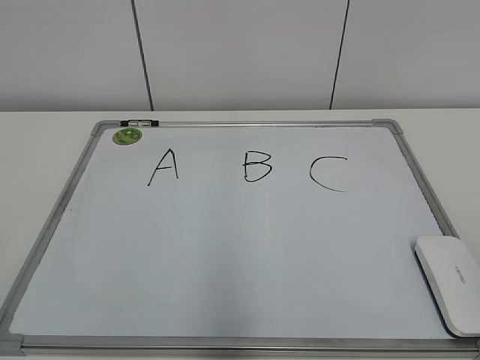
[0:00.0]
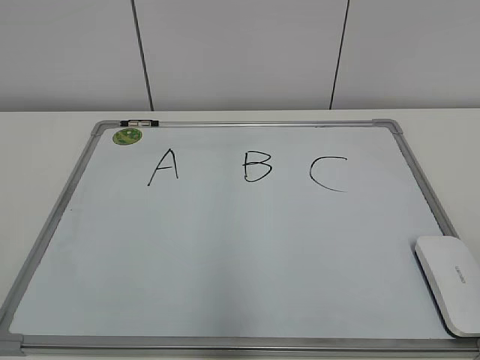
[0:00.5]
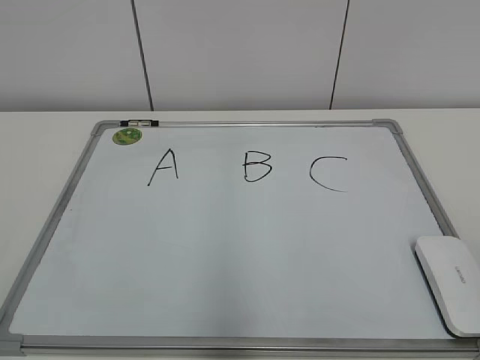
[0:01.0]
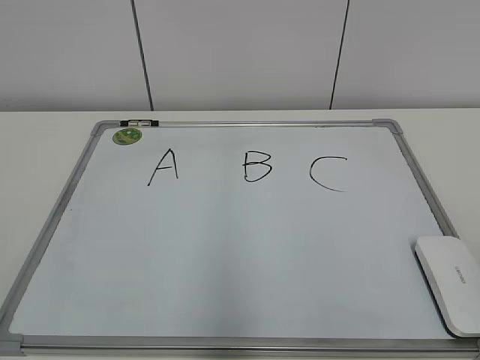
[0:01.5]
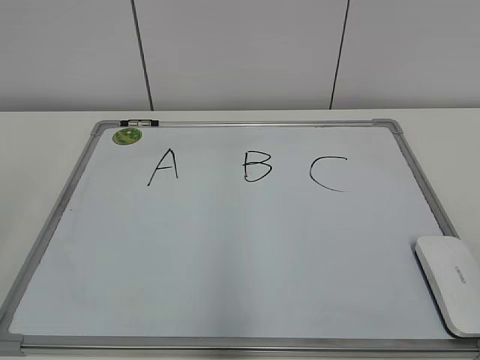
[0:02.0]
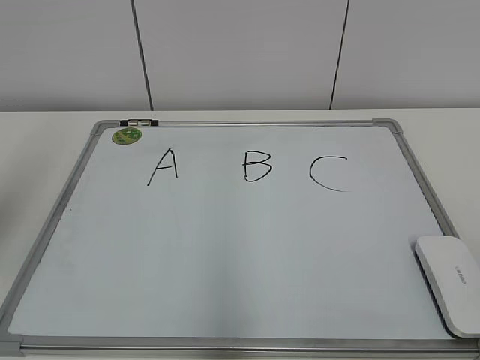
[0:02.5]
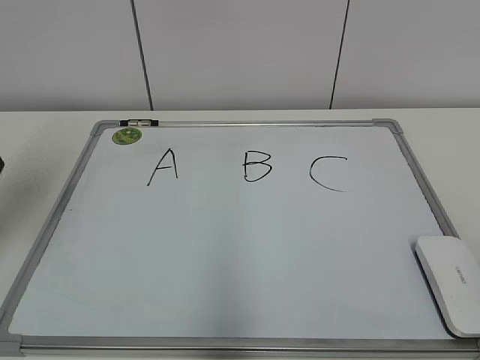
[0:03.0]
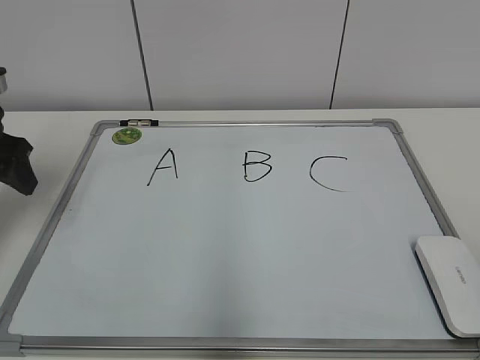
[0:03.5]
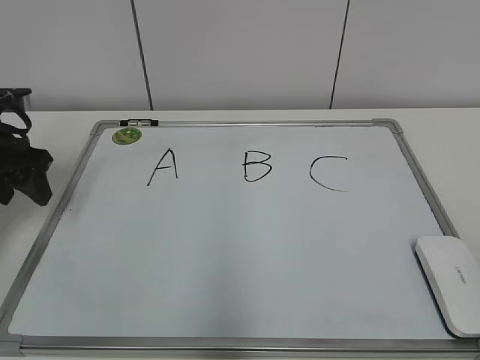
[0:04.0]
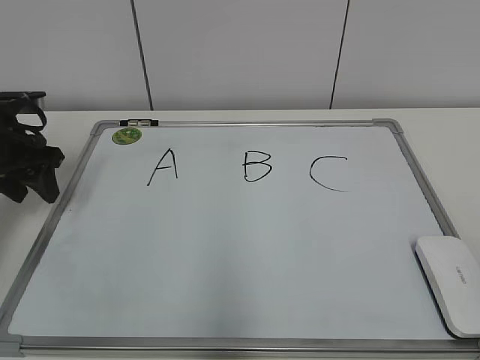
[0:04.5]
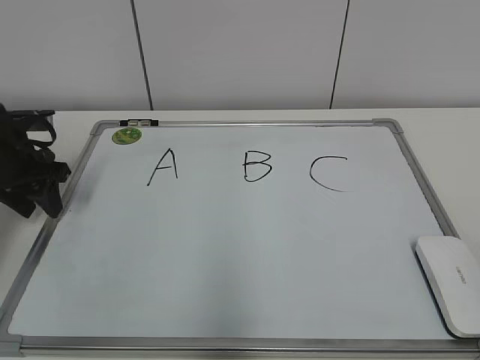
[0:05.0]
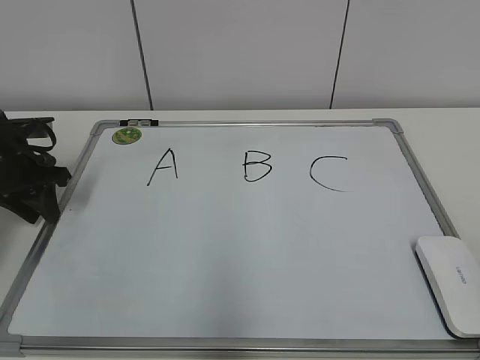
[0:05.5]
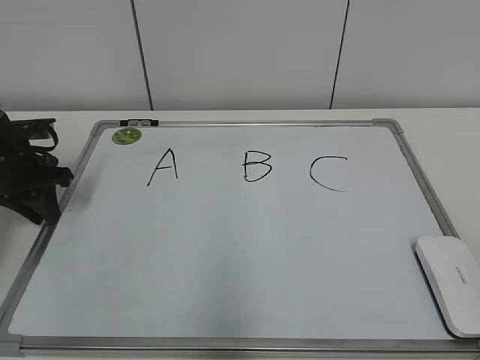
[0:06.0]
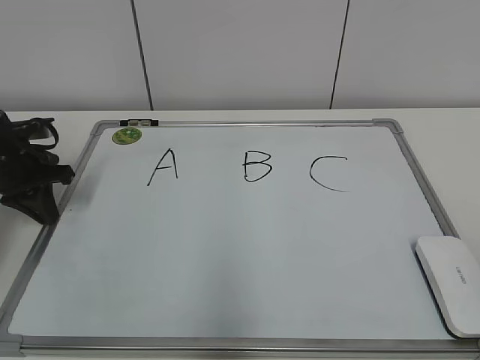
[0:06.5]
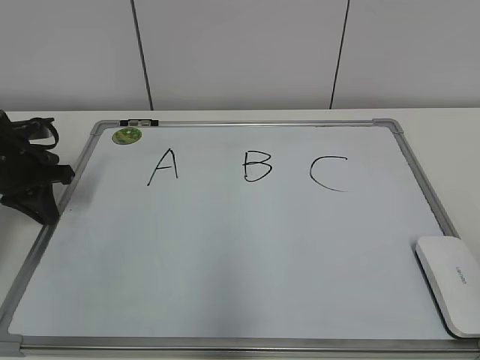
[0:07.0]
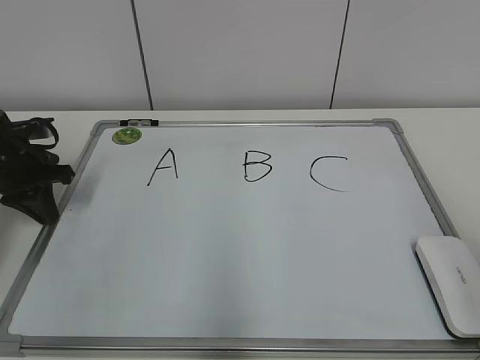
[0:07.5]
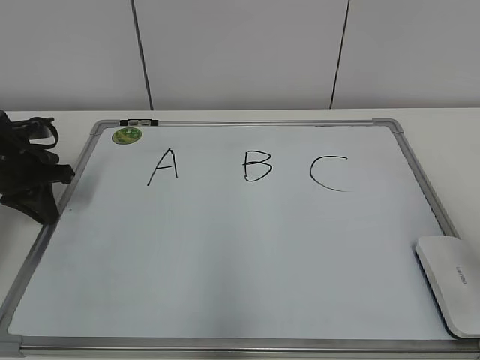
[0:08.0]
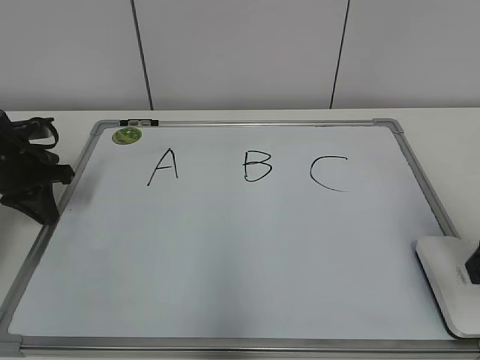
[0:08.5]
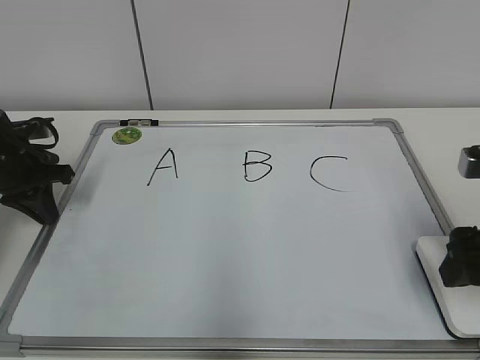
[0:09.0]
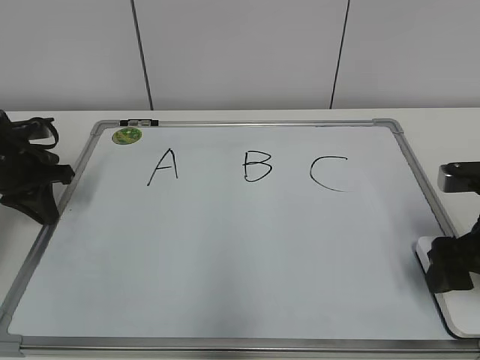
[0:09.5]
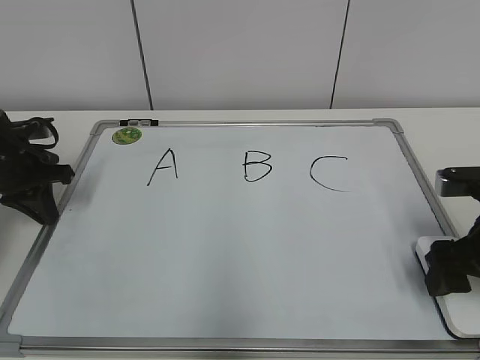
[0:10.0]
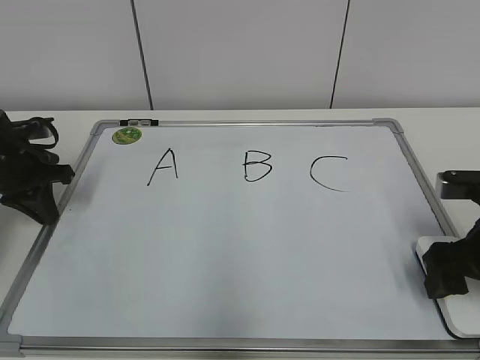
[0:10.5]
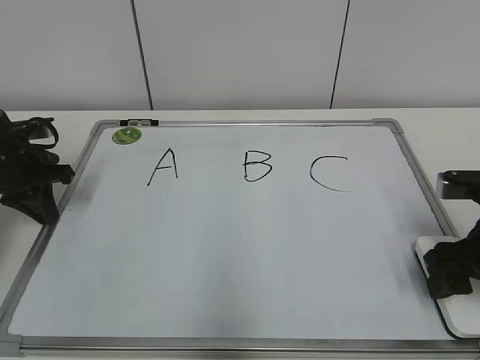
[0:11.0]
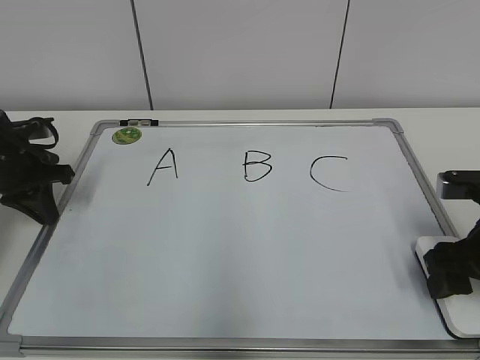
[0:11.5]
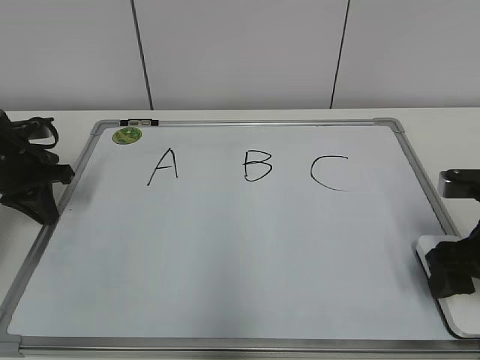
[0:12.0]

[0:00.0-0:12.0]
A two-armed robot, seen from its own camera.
Task of the whole recording: pick up the eraser on the blackboard and erase the letter "B".
Step, 0:00.0 to 0:06.0: Hold the drawing board steady with your left hand.
Step, 0:06.5 to 0:11.5: Grab the eraser with your right hand.
0:02.0 to 0:04.0: The left gripper is displaced forward and downward by about 35 cm.
0:04.0 to 0:06.0: The left gripper goes about 5 cm downward, and closes.
0:06.0 to 0:08.0: The right gripper heads forward, covering some 15 cm.
0:08.0 to 0:10.0: The right gripper heads downward and forward, covering approximately 15 cm, and opens its fingers.
0:10.0 to 0:12.0: The right gripper closes up.

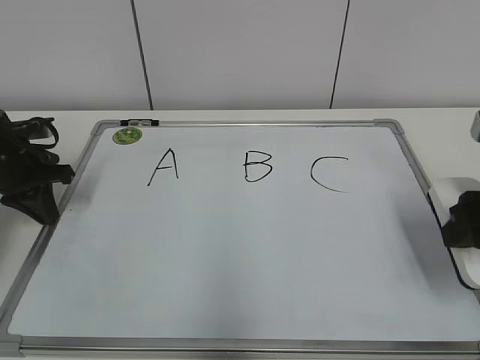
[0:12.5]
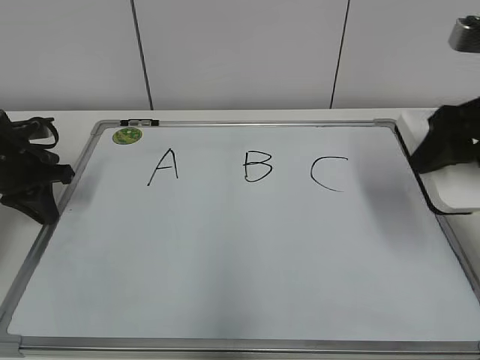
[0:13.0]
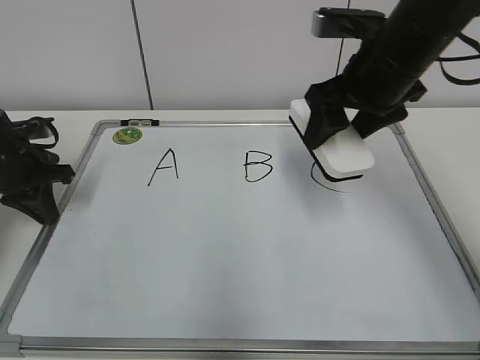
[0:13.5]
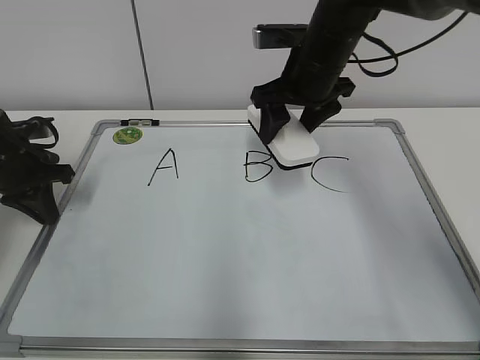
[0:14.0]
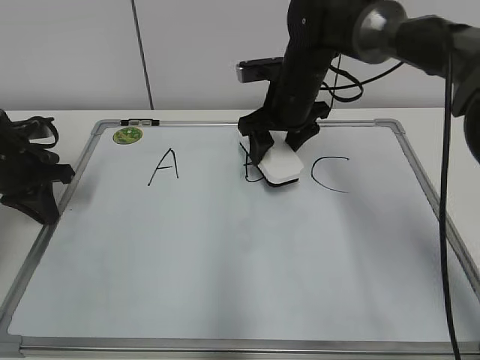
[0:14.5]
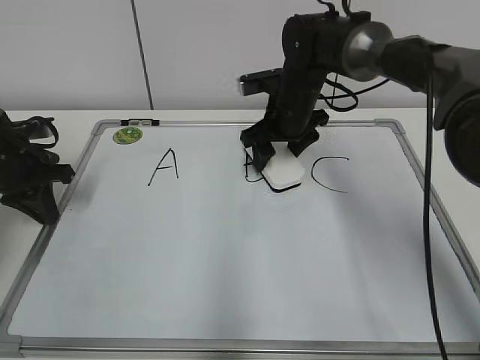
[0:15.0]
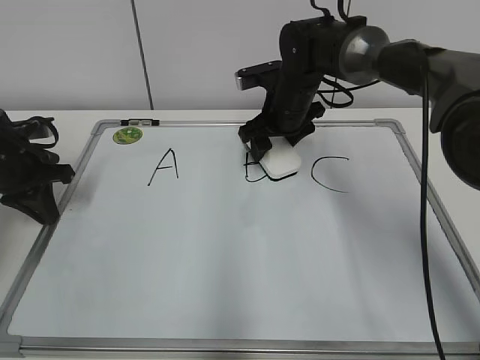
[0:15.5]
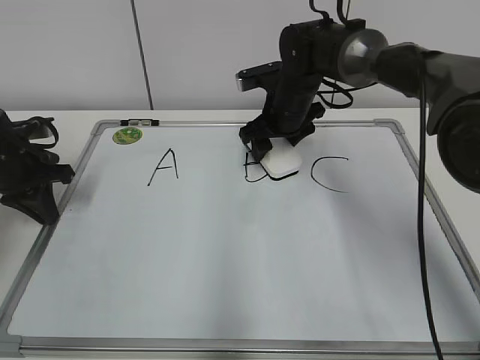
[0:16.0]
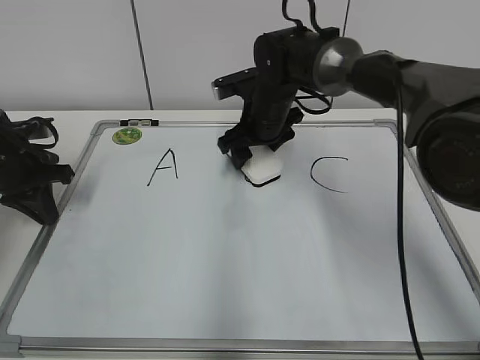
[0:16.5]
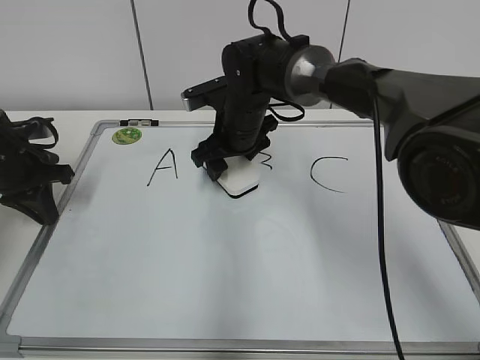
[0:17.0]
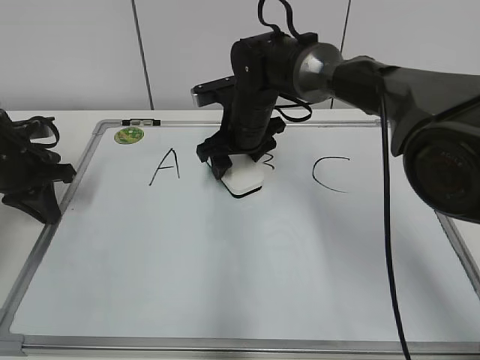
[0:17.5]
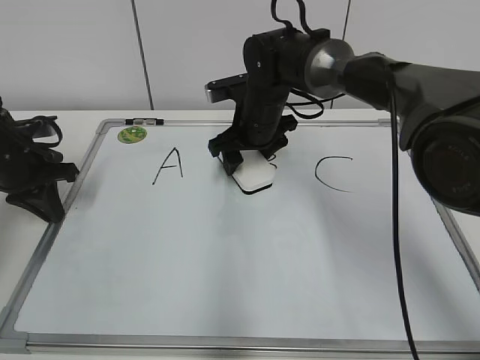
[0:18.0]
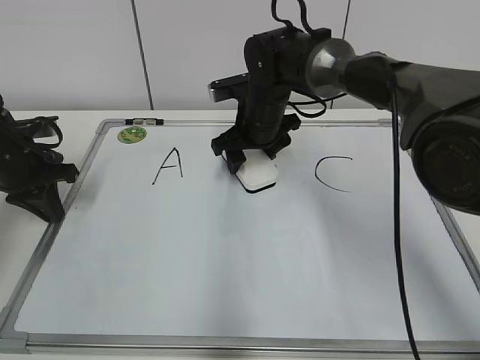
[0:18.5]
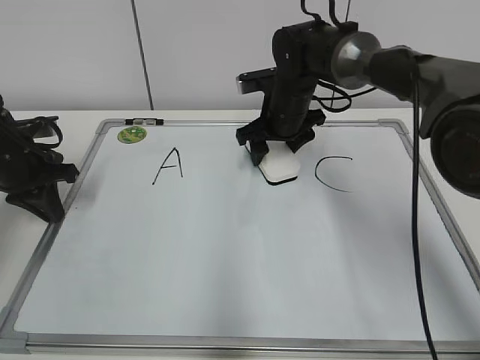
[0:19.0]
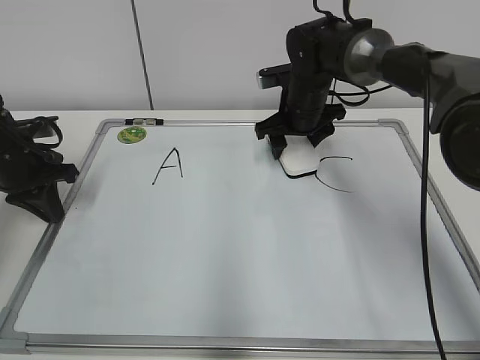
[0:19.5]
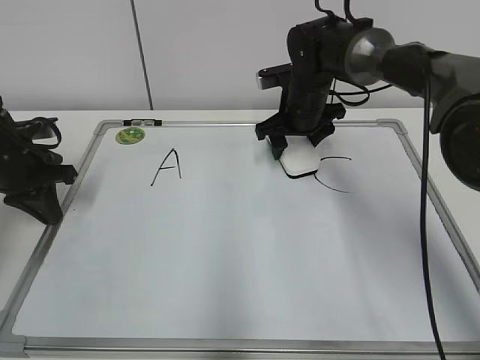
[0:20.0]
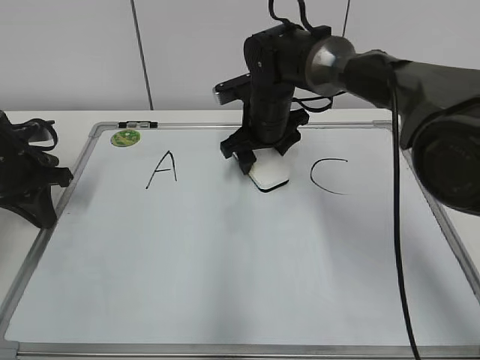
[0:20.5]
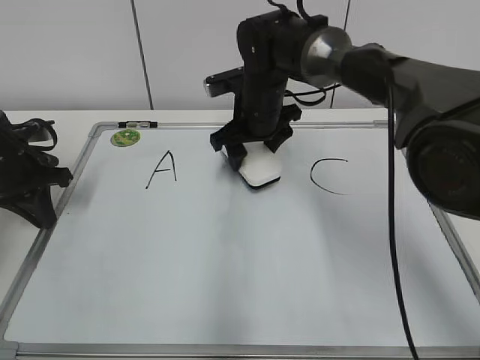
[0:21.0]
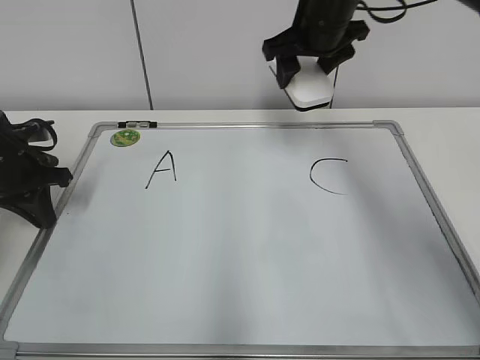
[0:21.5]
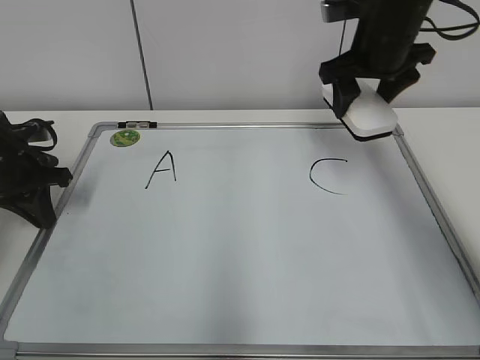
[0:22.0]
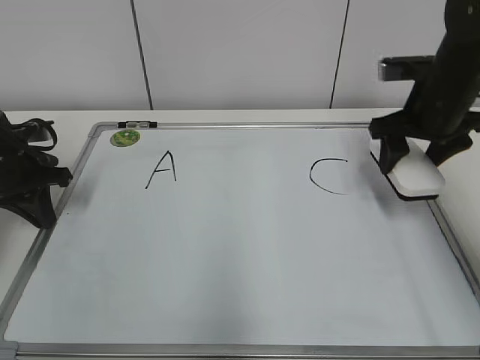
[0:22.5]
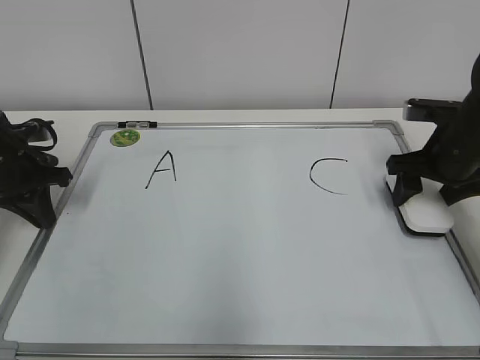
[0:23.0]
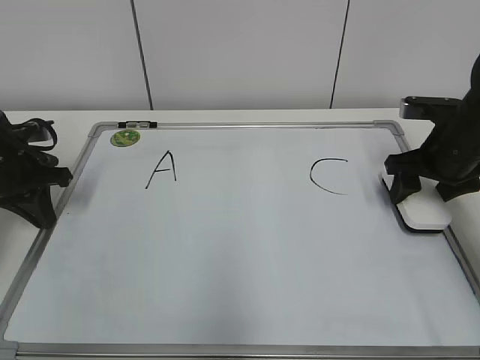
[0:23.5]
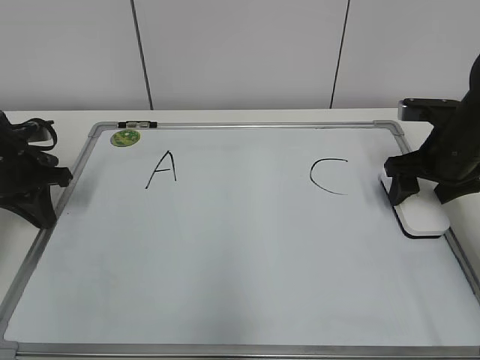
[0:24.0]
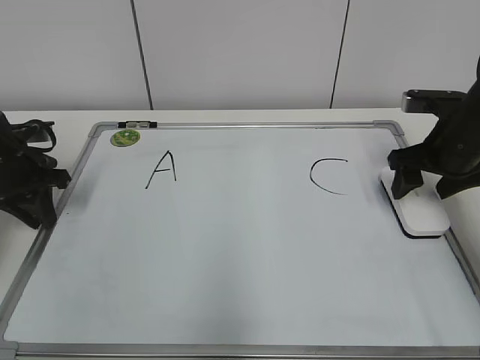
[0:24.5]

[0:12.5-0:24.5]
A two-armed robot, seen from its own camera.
Task of the whole recording: pick up the eraser on the blackboard and erase the letter "B".
Step, 0:12.5 to 0:20.5: Erase the letter B with your right hand.
0:12.5 to 0:14.5: The right gripper is displaced forward and to the left by about 30 cm.
0:14.5 to 0:16.5: The right gripper shifts by about 5 cm.
0:16.5 to 0:18.5: The grippers move only a little.
0:20.5 to 0:22.5: The right gripper shifts roughly 20 cm to the right.
0:22.5 to 0:24.5: The right gripper moves approximately 5 cm, and opens up.

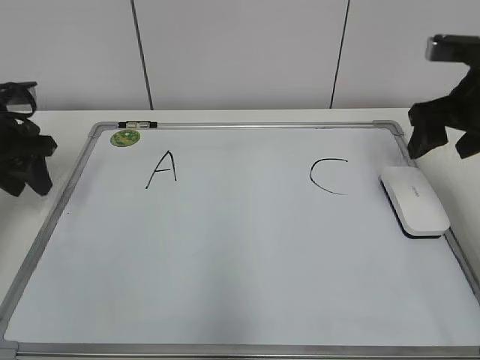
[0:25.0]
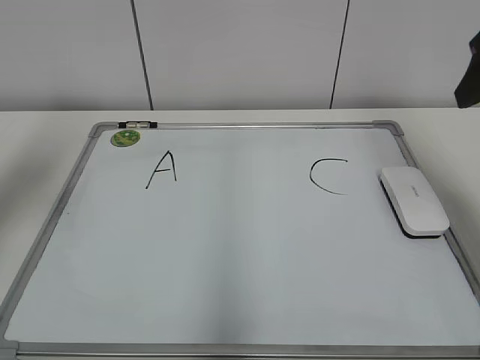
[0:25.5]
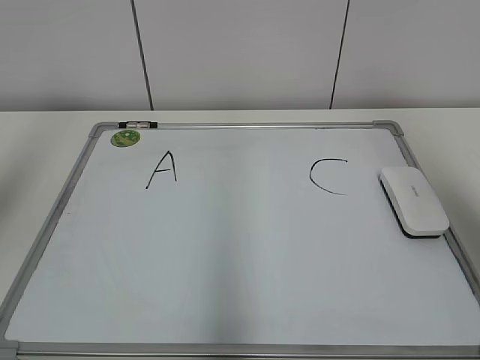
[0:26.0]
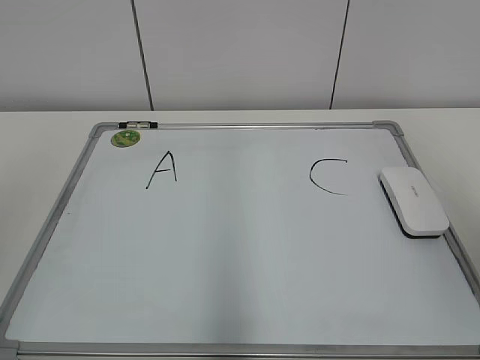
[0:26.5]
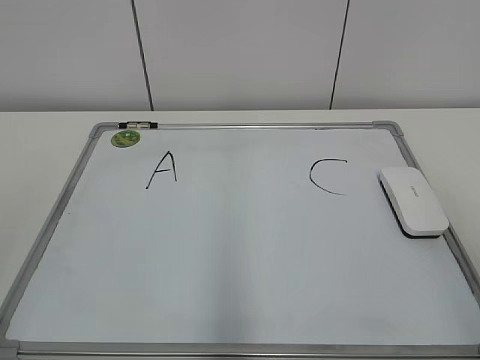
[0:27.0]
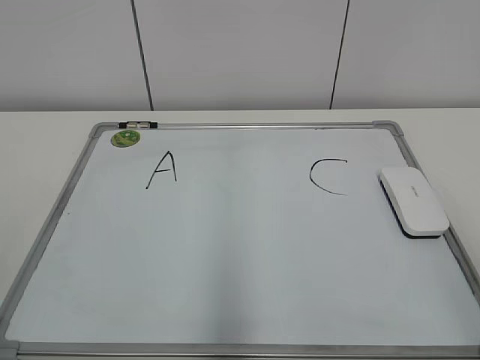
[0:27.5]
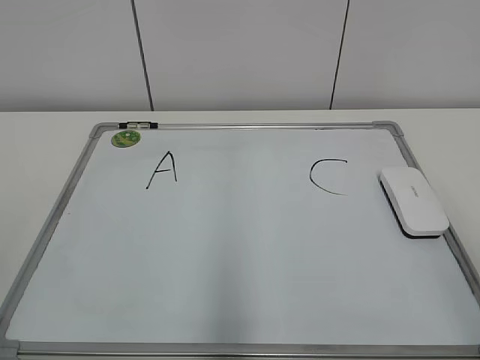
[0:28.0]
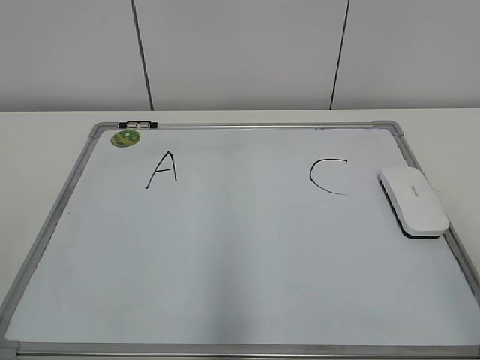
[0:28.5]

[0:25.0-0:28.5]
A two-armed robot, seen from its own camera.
Task of the whole recording: pick up the eraser on the blackboard and erase the letter "B".
0:25.0 to 0:27.0: The left gripper is displaced backward and upward by approximately 35 cm. Meanwhile the right gripper shifts about 35 cm backward.
